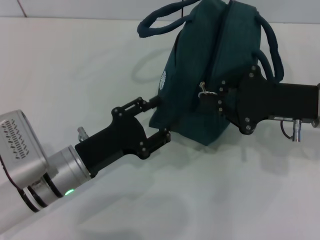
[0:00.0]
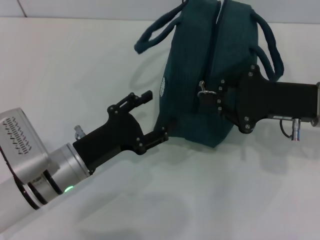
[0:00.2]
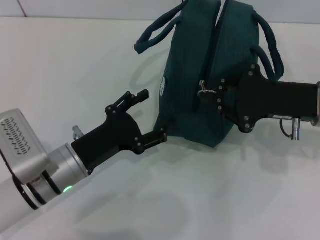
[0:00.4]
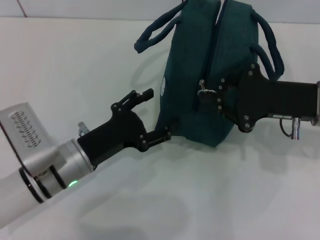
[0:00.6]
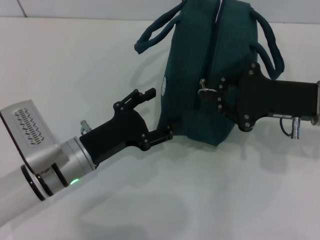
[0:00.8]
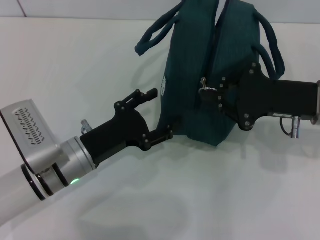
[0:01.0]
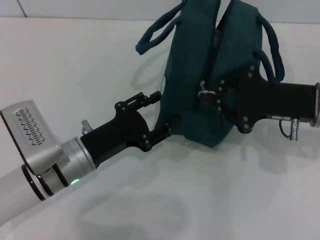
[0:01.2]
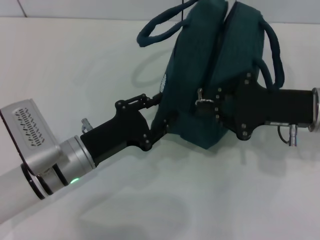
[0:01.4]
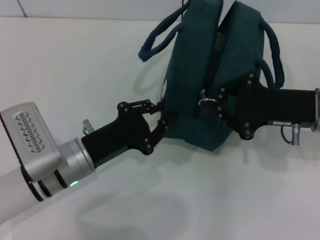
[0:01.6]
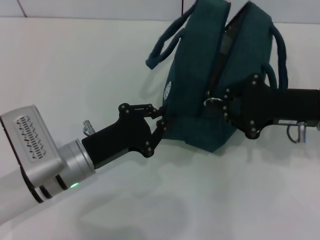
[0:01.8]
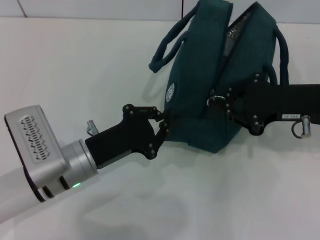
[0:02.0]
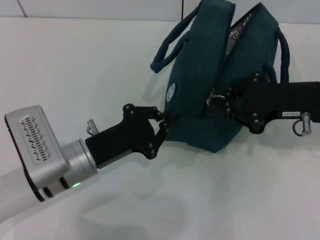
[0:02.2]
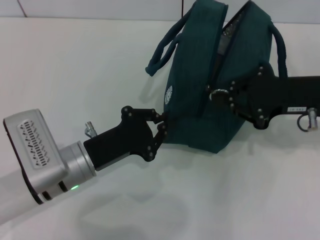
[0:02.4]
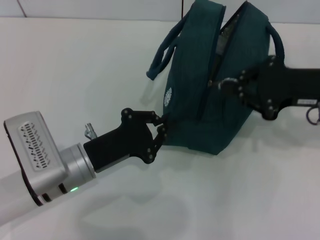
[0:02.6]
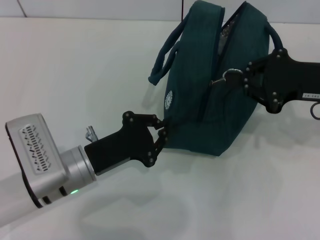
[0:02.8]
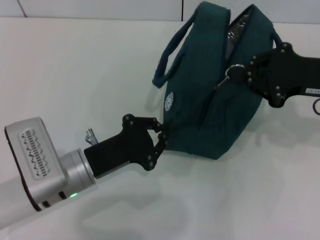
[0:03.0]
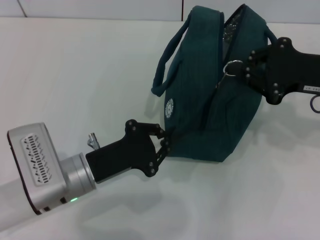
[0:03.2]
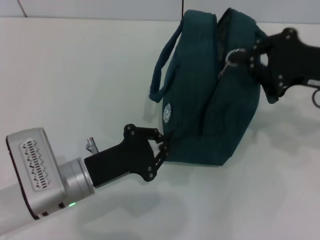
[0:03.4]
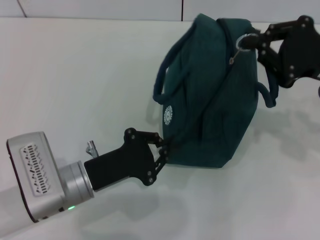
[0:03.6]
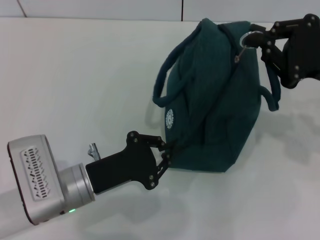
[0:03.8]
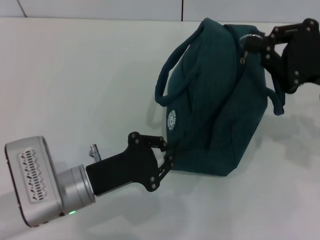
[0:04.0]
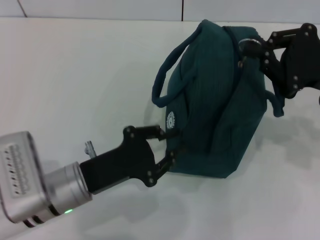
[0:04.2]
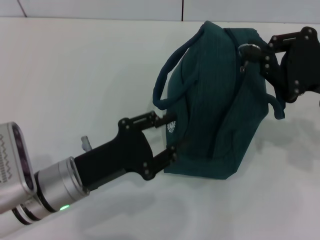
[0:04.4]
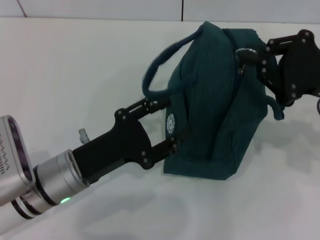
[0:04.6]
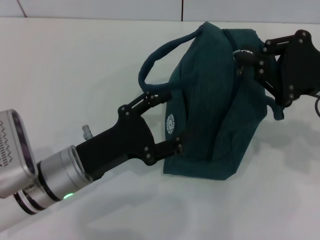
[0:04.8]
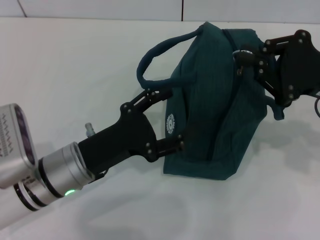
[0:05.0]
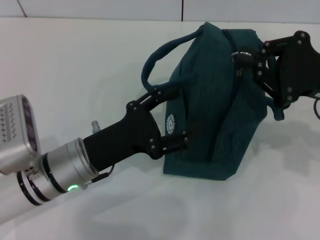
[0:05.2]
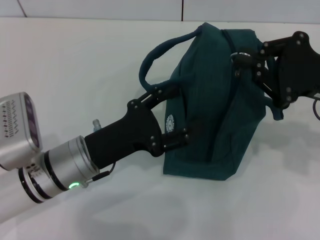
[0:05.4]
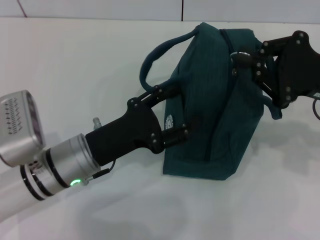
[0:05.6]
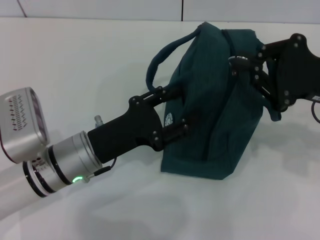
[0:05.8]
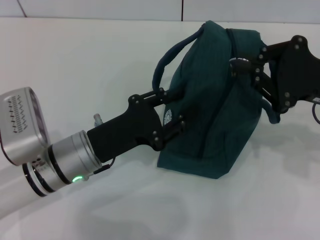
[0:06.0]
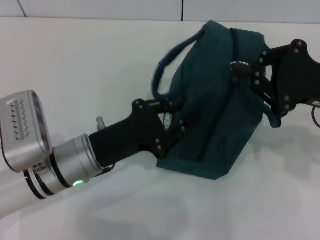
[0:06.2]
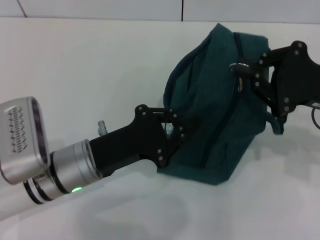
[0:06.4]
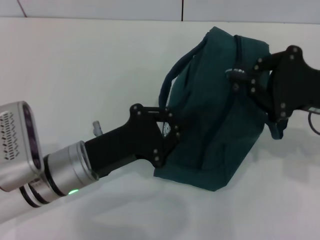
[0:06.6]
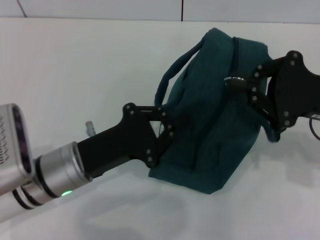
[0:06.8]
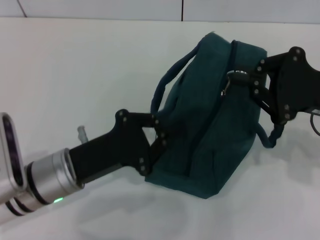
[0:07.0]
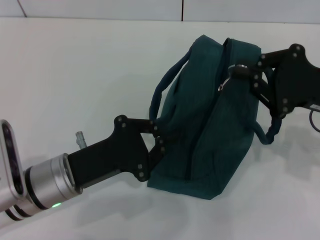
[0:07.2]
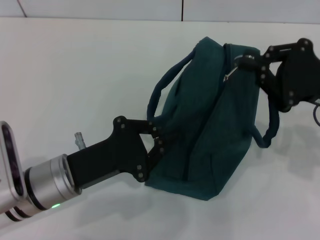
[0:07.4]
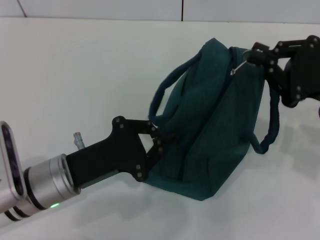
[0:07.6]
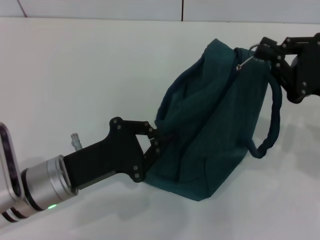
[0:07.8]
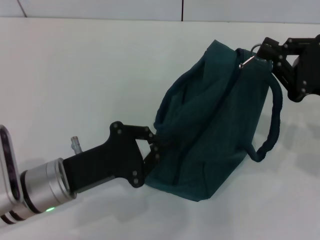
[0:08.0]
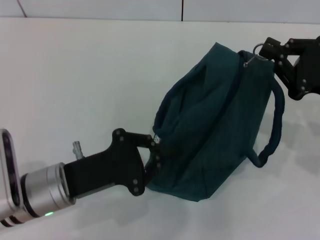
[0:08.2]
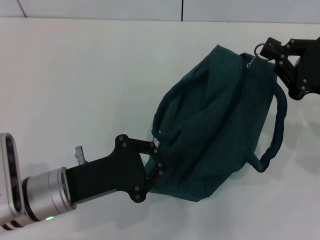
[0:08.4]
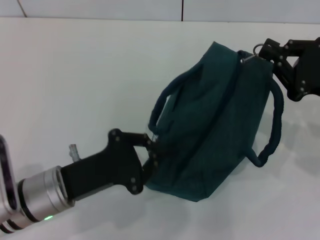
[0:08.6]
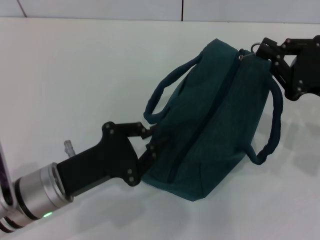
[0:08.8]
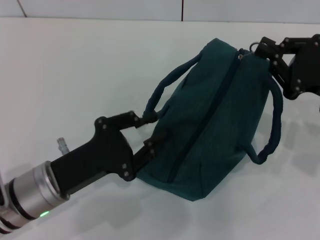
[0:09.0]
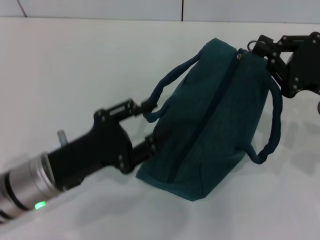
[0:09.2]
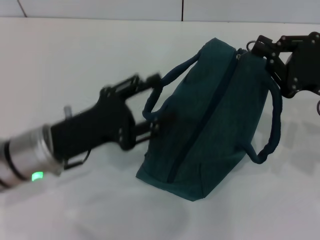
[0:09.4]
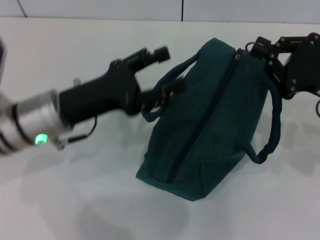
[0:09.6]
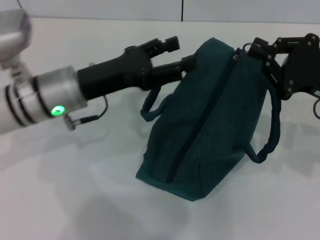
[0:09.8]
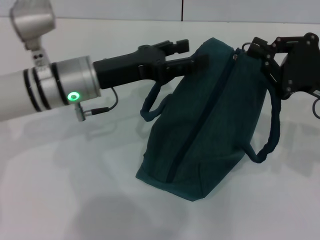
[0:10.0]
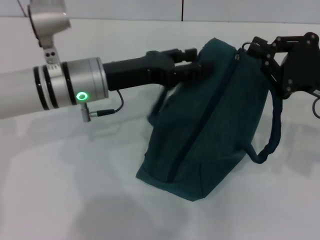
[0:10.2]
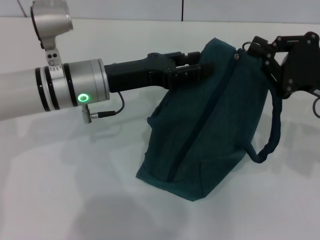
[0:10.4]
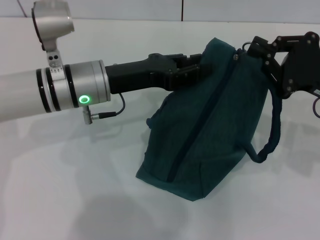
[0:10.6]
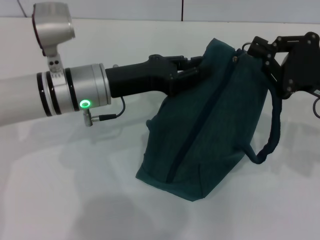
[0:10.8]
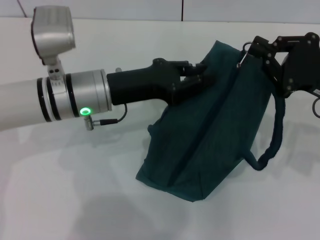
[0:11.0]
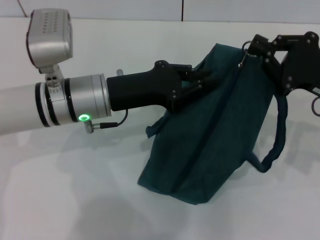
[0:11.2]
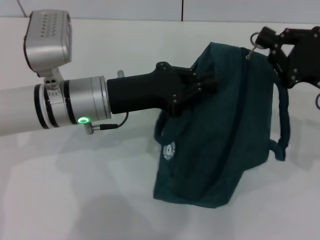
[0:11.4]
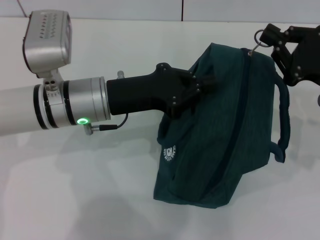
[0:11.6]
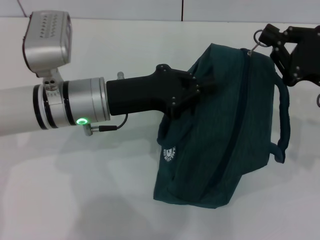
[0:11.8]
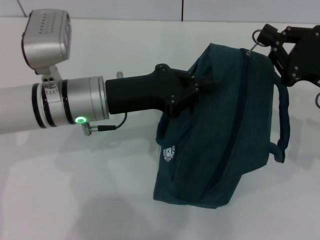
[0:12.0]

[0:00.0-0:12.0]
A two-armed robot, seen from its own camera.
0:00.0 to 0:01.6: The left gripper opens, then closes again.
0:01.6 to 0:03.0: The left gripper closes up; the right gripper shifts by some 5 cm.
0:04.4 to 0:06.0: The left gripper opens up.
0:06.0 to 0:07.6: The left gripper closes its fingers.
0:07.6 to 0:09.0: The grippers move only a little.
0:09.0 to 0:10.4: The left gripper travels forward and upward by some 15 cm, and opens up.
0:10.4 to 0:12.0: The left gripper closes.

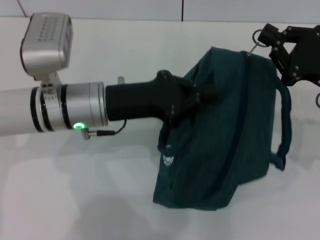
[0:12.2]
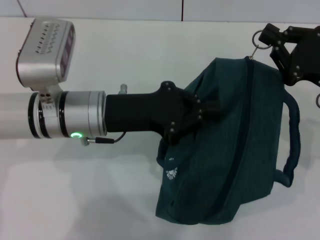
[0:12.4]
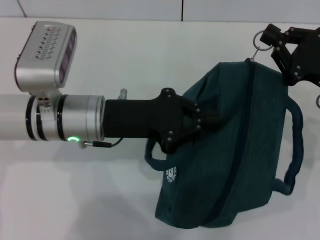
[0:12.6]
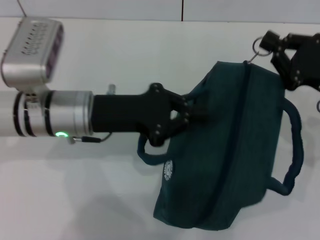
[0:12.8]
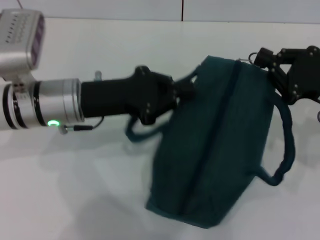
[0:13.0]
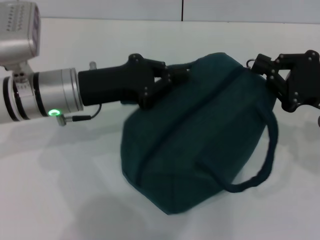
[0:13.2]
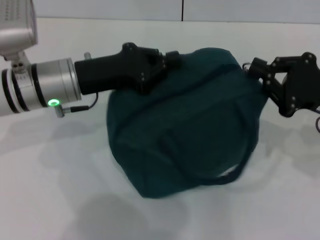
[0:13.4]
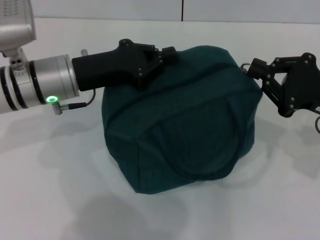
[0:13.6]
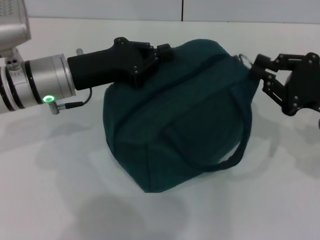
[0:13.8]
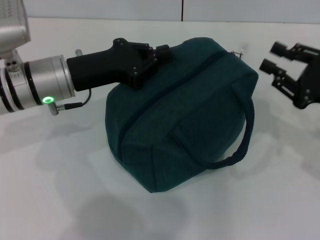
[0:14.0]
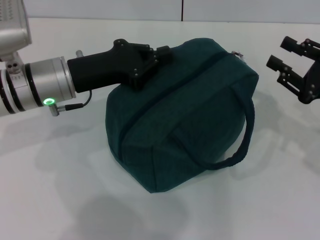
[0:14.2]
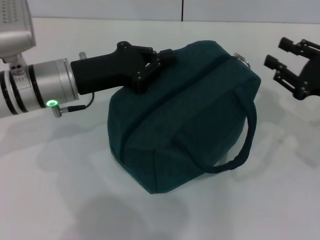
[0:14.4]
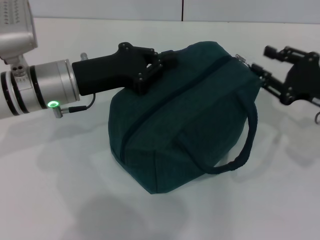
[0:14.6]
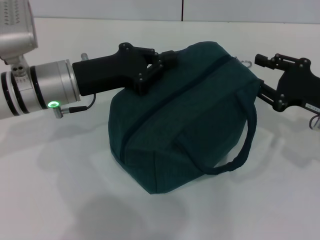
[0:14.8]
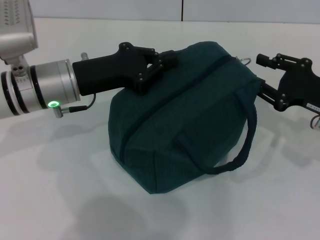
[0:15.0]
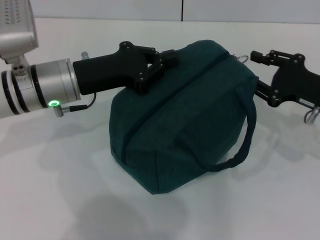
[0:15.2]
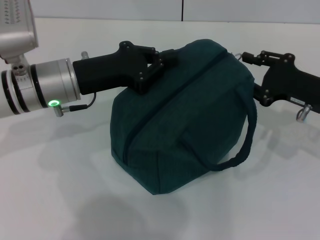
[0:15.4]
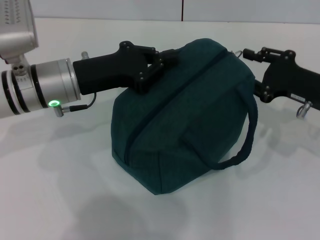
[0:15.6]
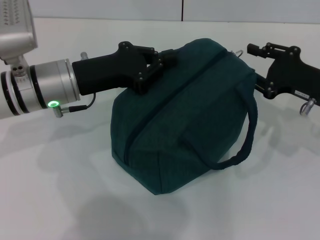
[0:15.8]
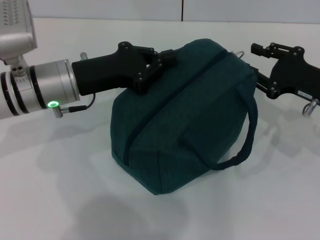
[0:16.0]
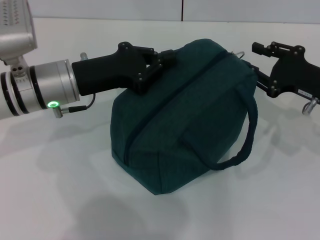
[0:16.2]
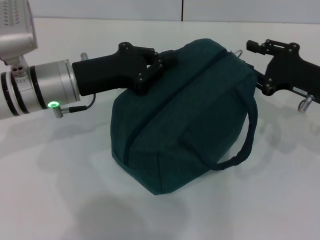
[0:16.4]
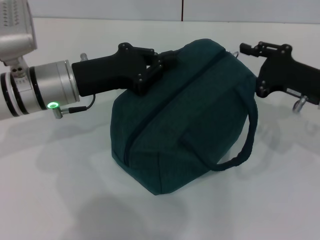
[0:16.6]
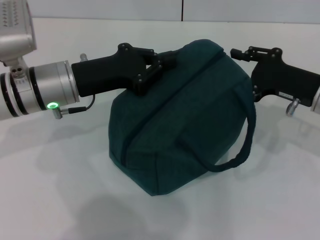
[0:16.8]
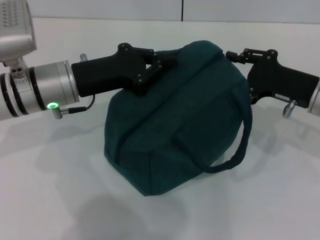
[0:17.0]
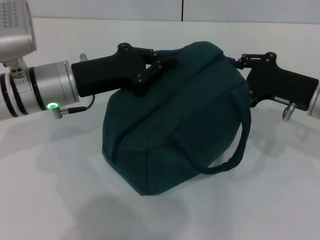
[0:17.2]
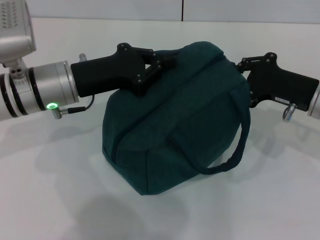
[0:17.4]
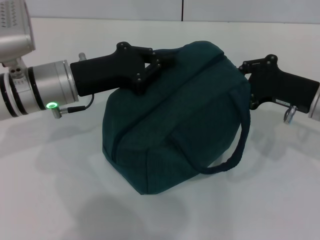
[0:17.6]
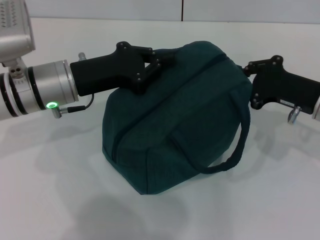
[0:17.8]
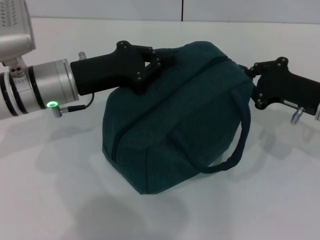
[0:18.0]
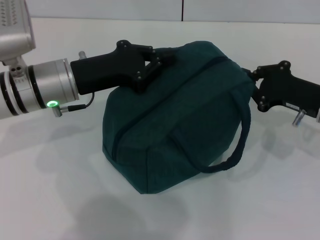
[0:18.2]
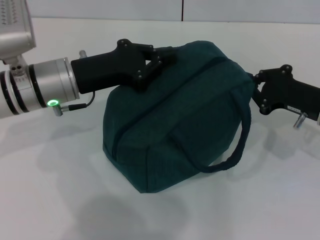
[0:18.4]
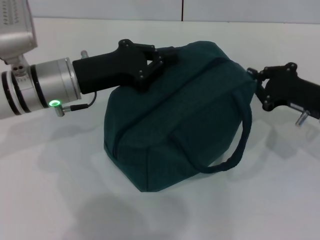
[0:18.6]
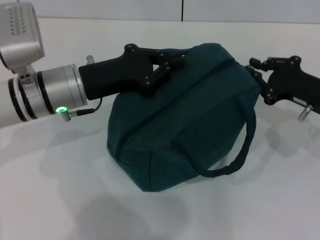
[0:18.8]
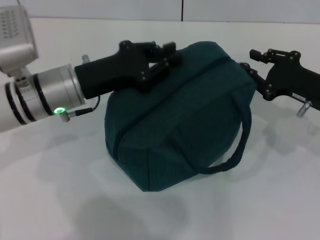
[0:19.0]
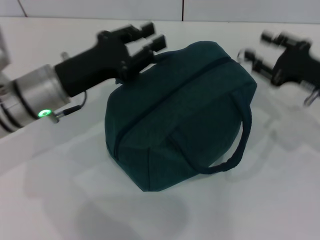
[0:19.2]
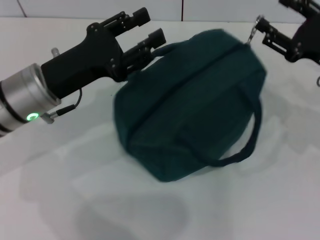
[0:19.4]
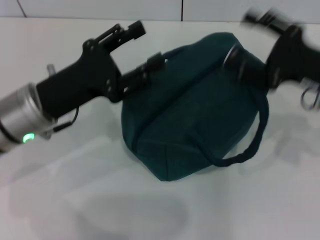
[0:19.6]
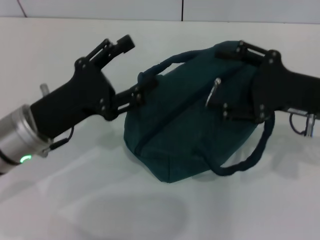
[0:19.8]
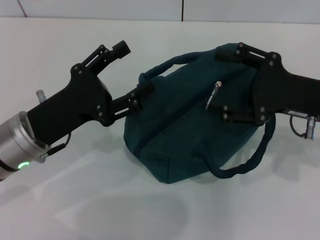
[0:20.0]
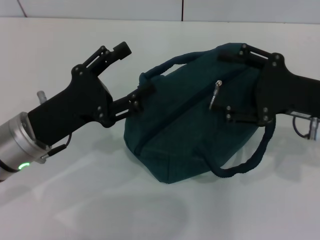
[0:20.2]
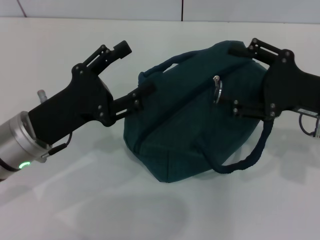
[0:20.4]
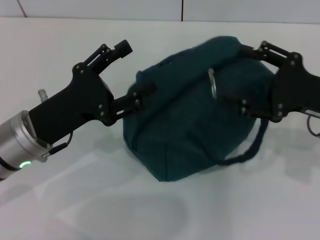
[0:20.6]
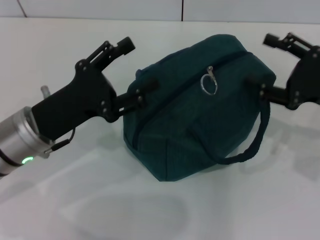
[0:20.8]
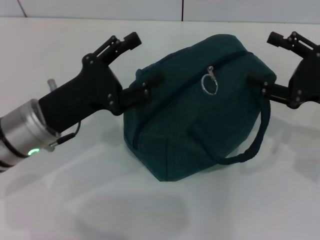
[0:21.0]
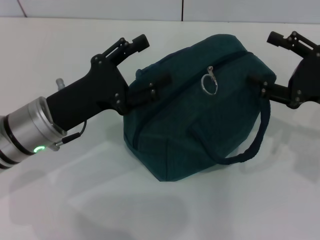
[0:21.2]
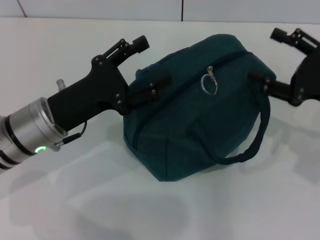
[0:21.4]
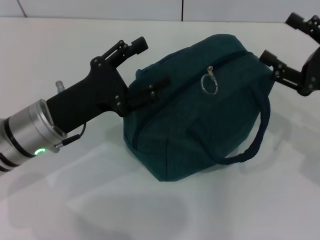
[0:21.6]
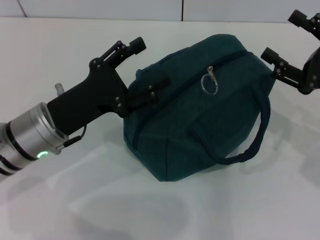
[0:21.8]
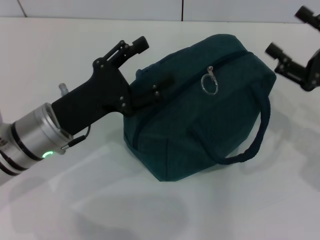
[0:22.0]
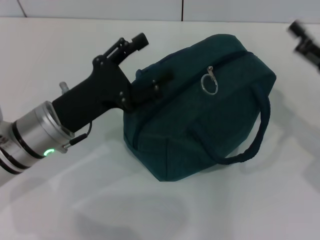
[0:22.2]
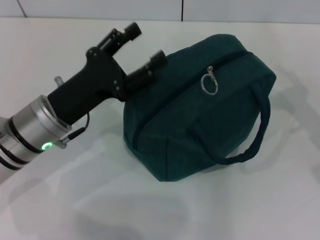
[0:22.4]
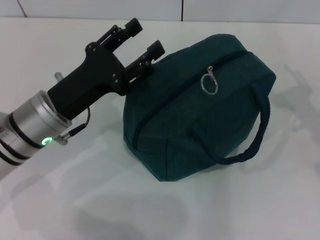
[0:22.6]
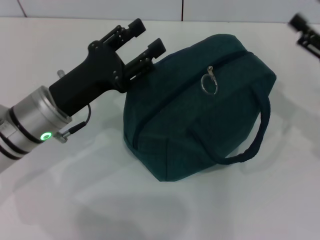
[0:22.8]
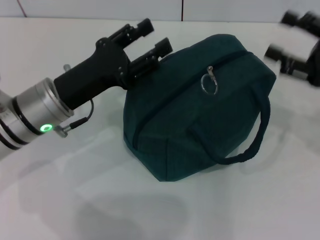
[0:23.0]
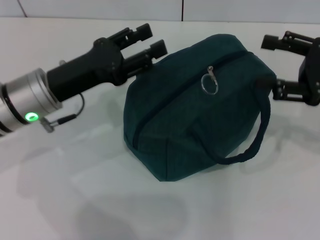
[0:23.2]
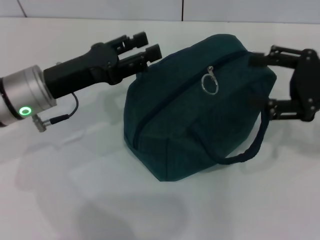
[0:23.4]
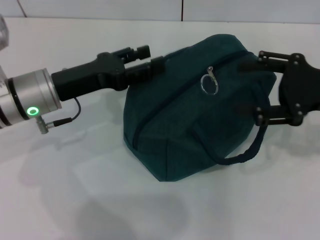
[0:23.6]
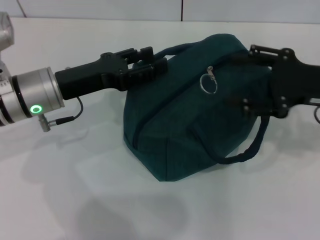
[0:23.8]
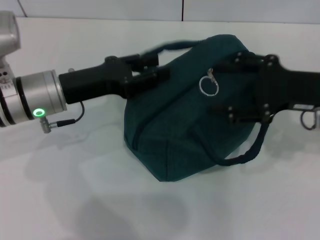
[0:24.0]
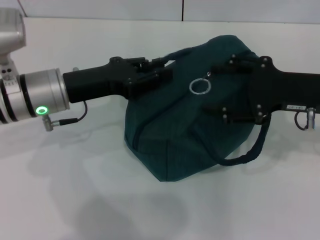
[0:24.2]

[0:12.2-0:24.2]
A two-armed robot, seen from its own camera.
0:12.2 to 0:13.8: The left gripper moves roughly 5 cm.
0:13.8 to 0:15.2: The right gripper opens its fingers.
0:15.2 to 0:16.6: The grippers stay close to where they were, moving slightly.
0:16.6 to 0:18.2: The right gripper closes up.
0:18.2 to 0:19.8: The right gripper heads upward, covering approximately 5 cm, and opens. Meanwhile the left gripper is displaced backward by about 10 cm, and opens its fingers.
0:19.8 to 0:21.2: The right gripper ends up about 5 cm from where it was.
0:22.6 to 0:24.2: The left gripper ends up roughly 5 cm from where it was. Meanwhile the right gripper travels to the left by approximately 5 cm.
